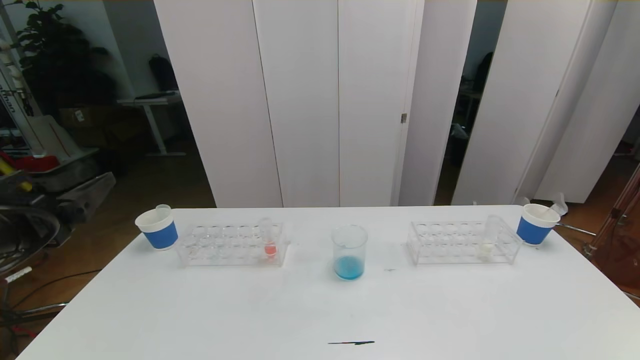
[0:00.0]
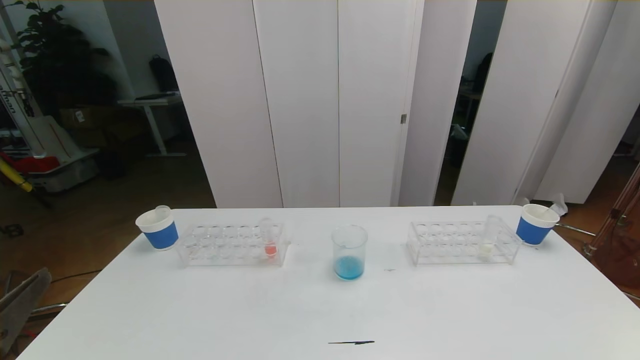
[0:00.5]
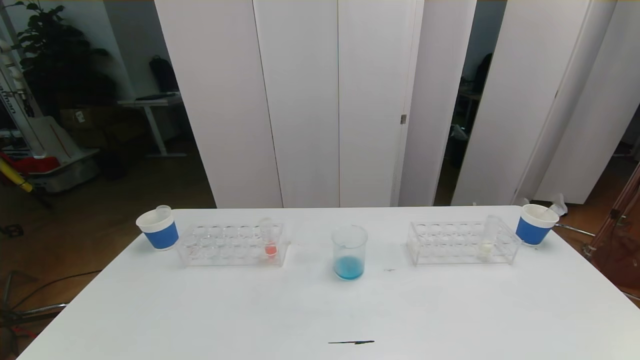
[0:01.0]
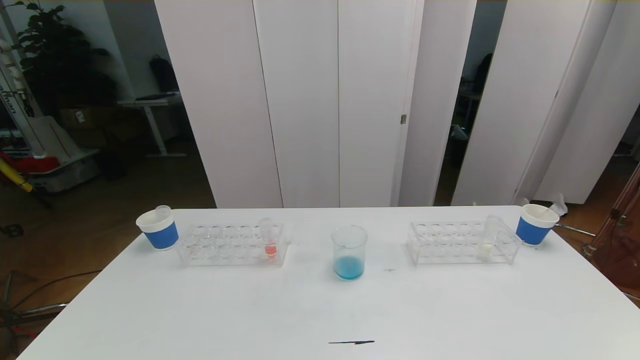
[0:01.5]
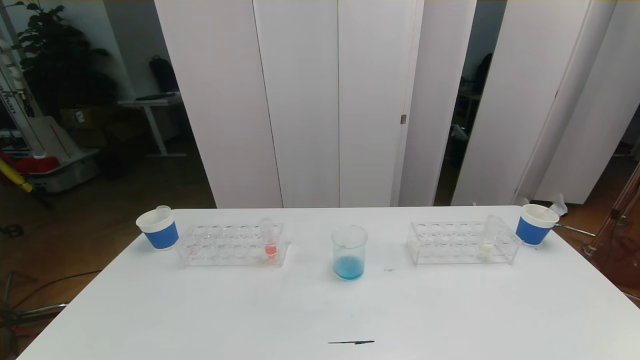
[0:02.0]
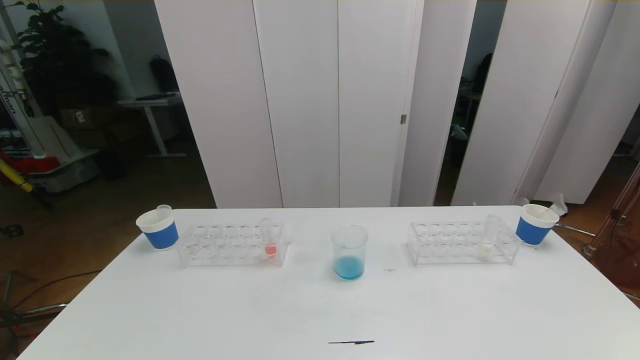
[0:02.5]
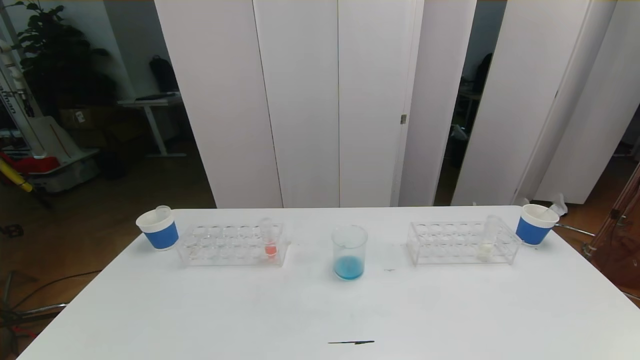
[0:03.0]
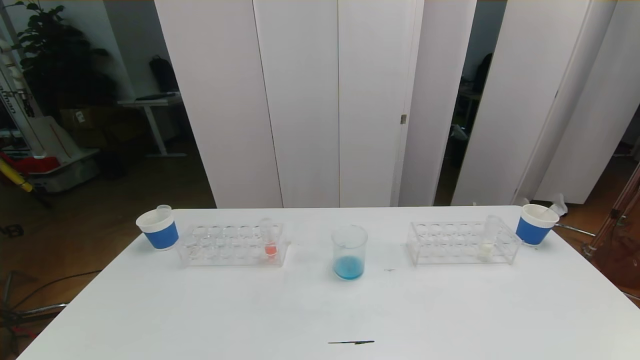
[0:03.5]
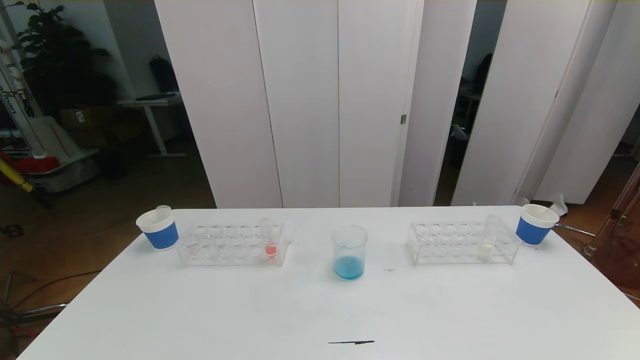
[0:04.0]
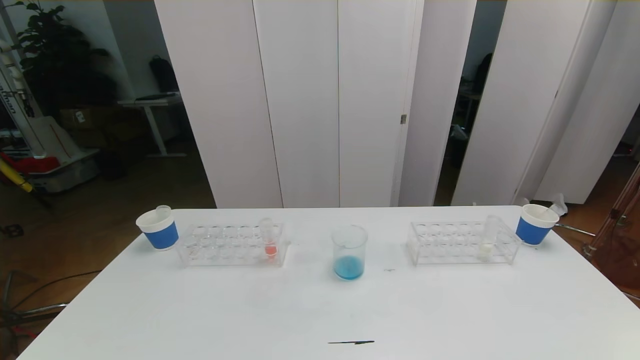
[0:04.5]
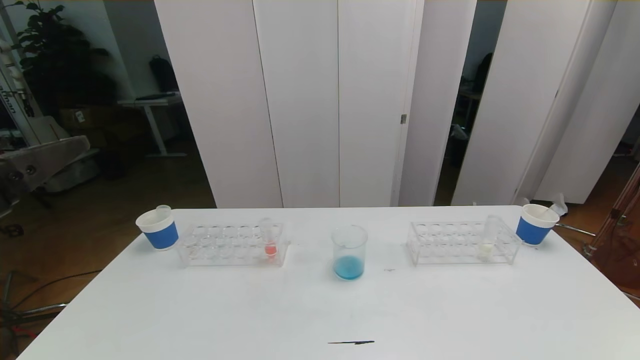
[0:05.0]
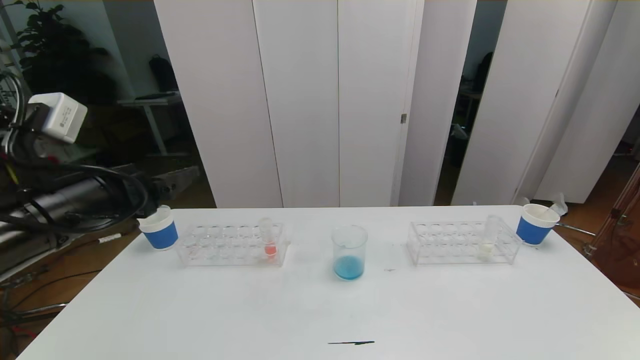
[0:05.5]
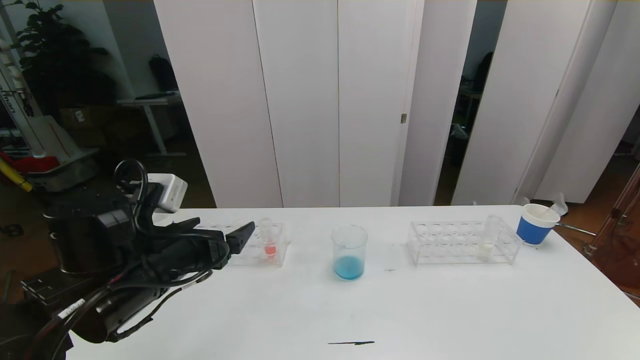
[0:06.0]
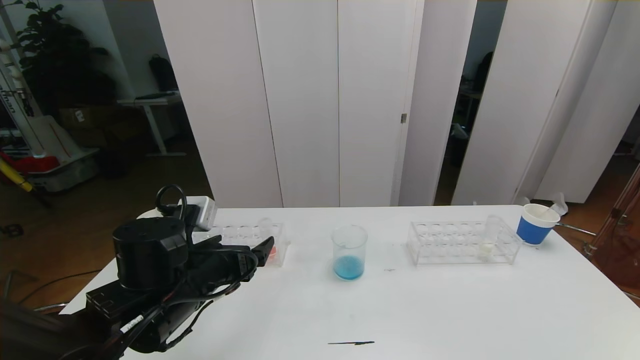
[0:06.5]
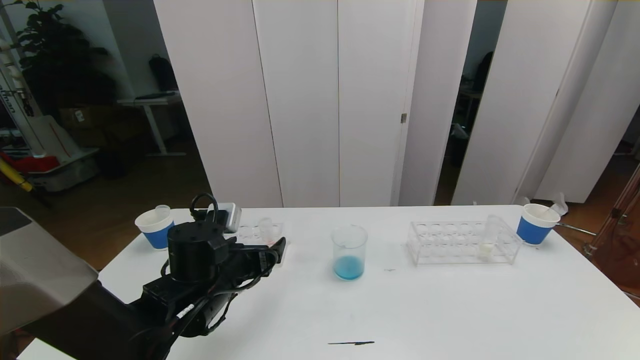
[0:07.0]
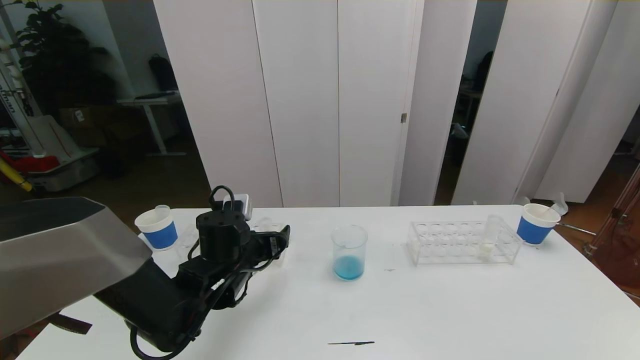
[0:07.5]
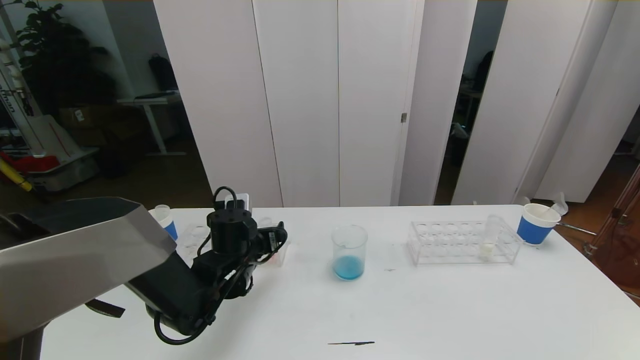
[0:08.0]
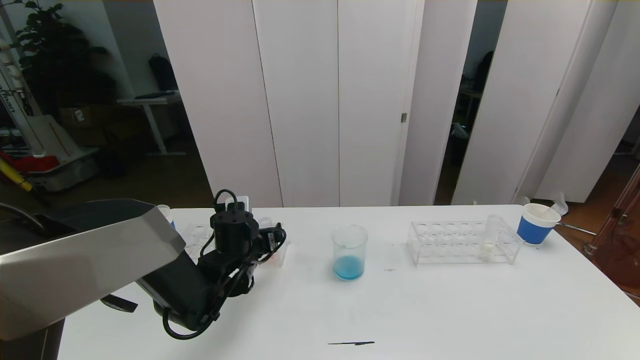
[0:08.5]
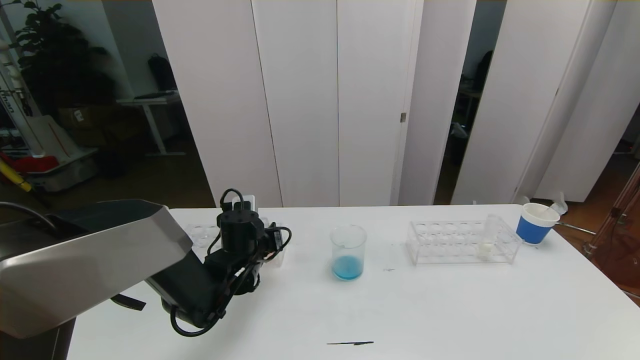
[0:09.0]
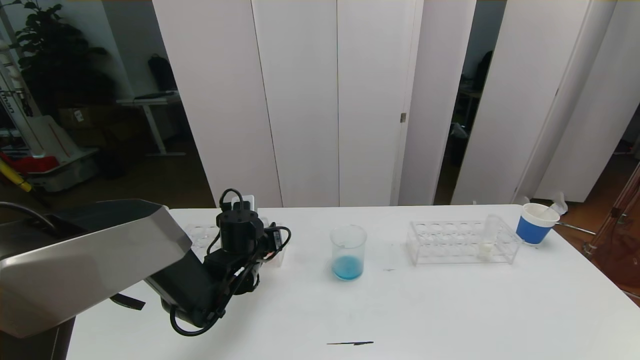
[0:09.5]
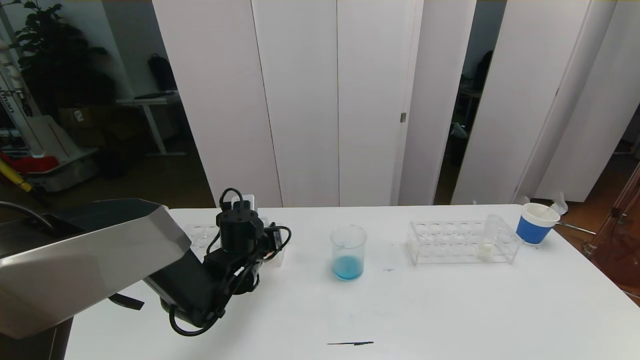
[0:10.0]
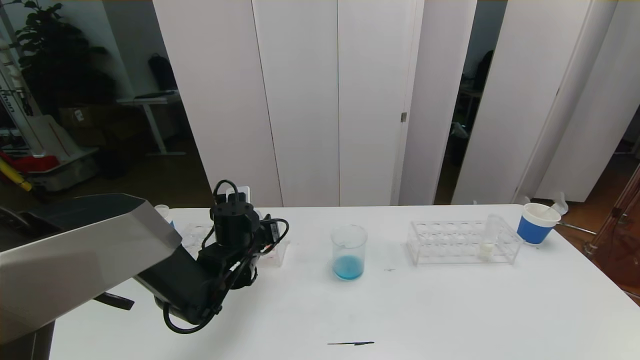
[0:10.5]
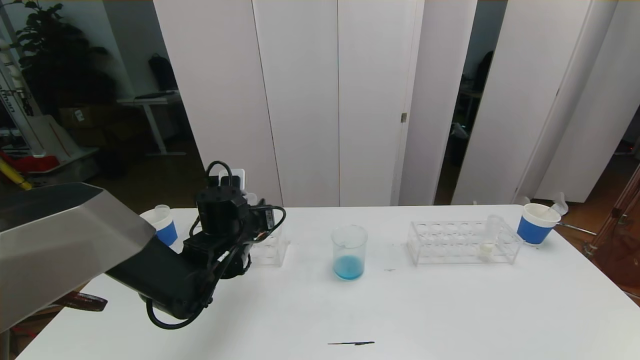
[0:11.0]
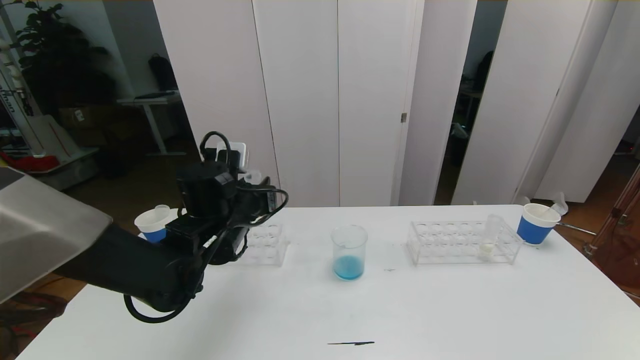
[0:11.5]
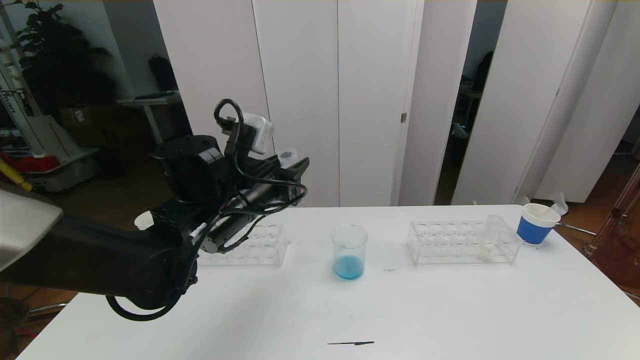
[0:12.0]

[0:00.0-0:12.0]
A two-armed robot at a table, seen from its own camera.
Task of the whole recording: pick up the test tube with red pigment the test tube with blue pigment and the test tube with white pigment by grippers and pour them into the beaker.
0:04.0 to 0:06.0: The left gripper shifts some 30 cm forward.
0:06.0 to 0:08.0: The left gripper heads forward and downward, covering some 15 cm.
0:08.0 to 0:10.0: The left gripper closes up.
0:10.0 to 0:12.0: The left gripper moves upward, about 15 cm.

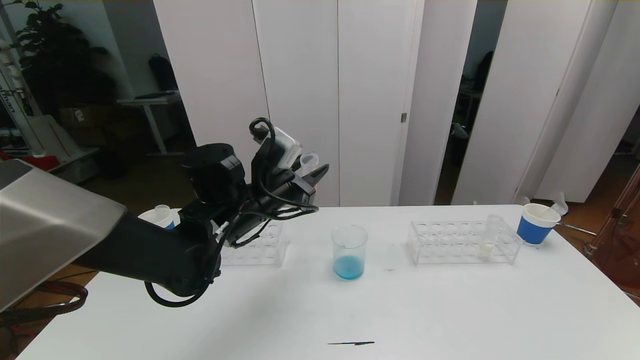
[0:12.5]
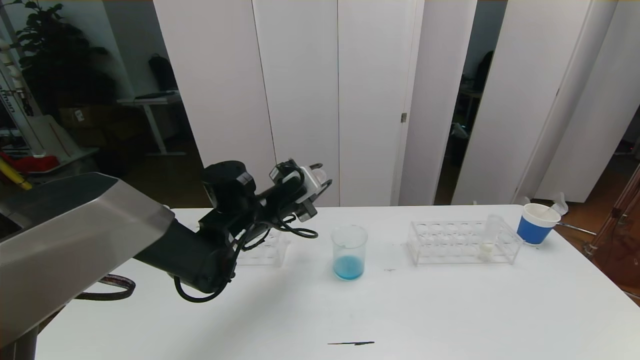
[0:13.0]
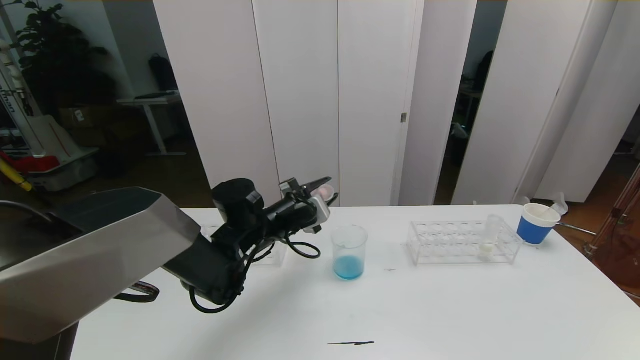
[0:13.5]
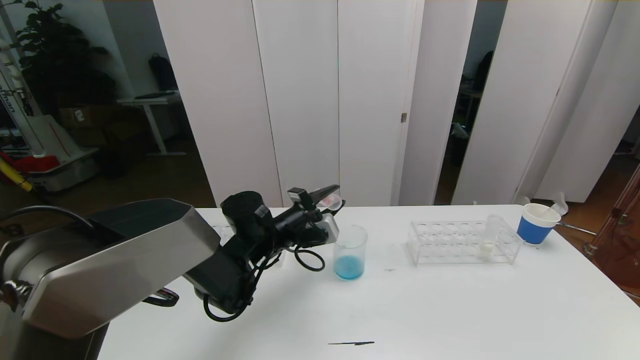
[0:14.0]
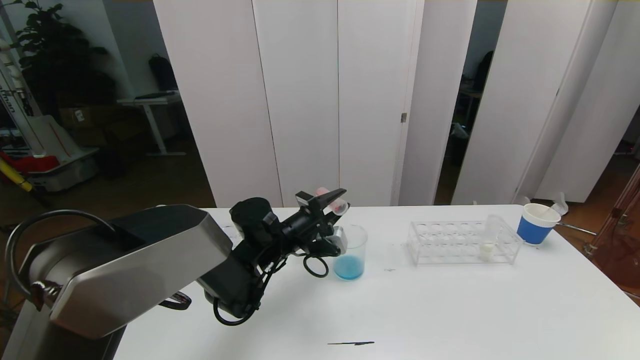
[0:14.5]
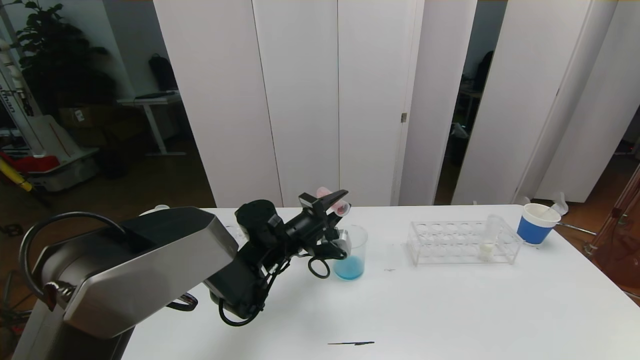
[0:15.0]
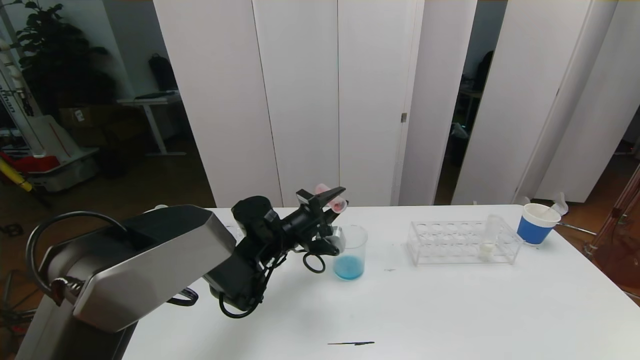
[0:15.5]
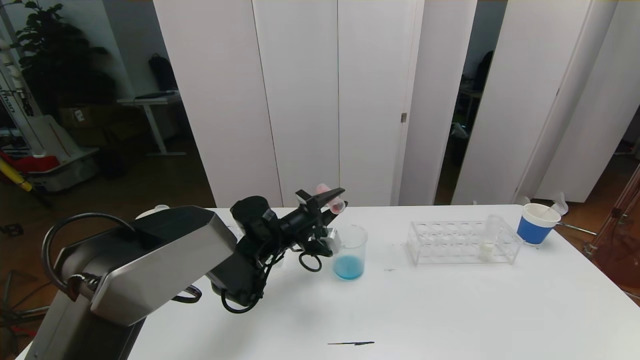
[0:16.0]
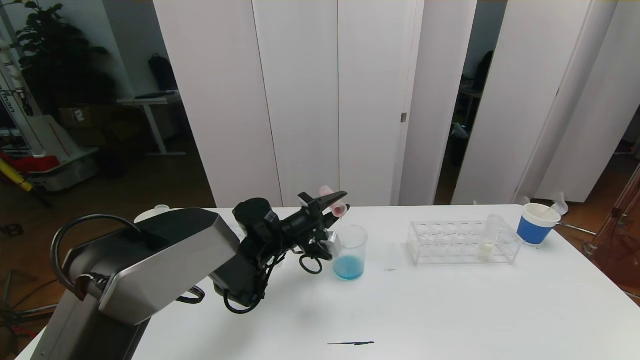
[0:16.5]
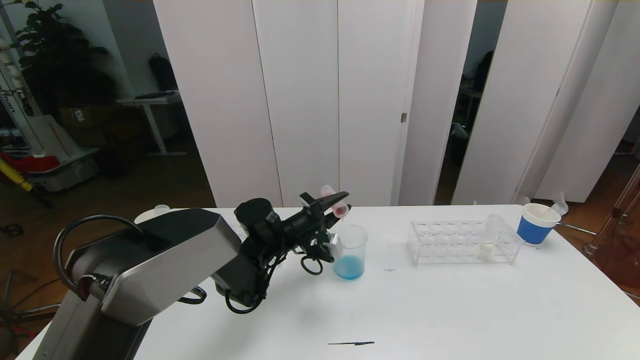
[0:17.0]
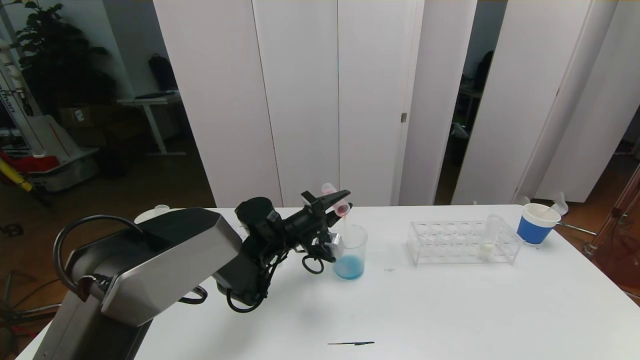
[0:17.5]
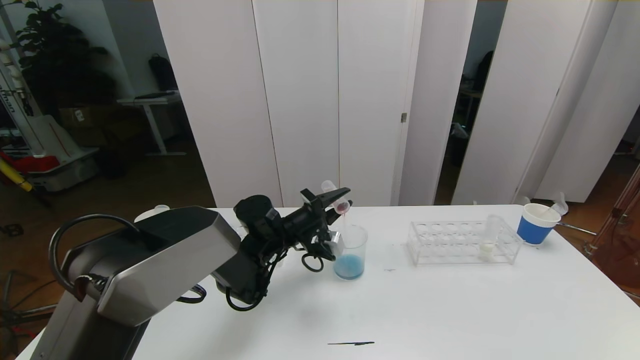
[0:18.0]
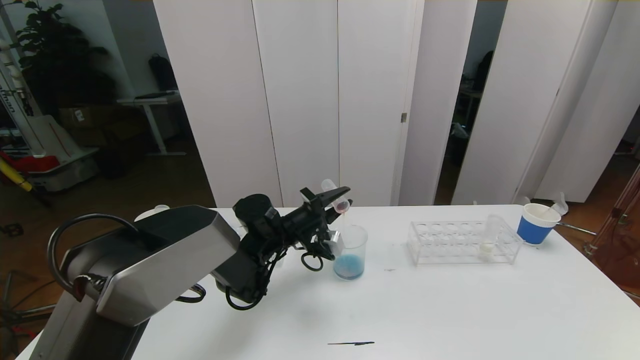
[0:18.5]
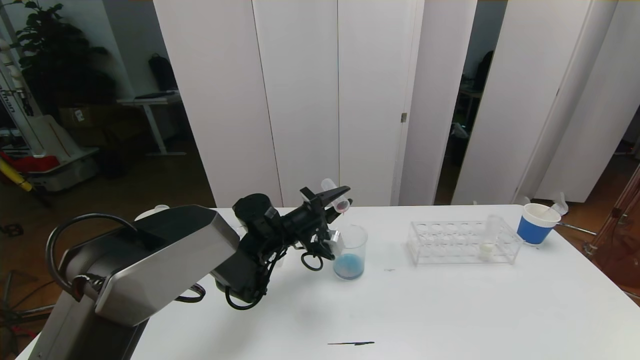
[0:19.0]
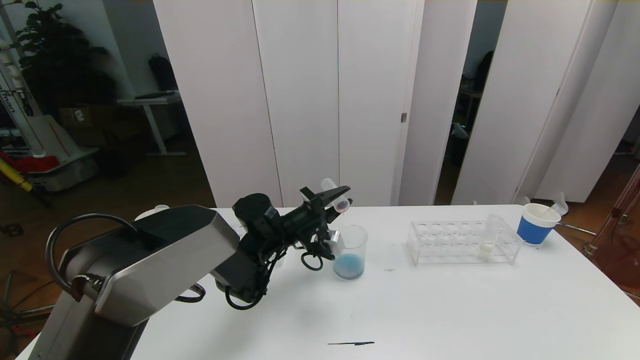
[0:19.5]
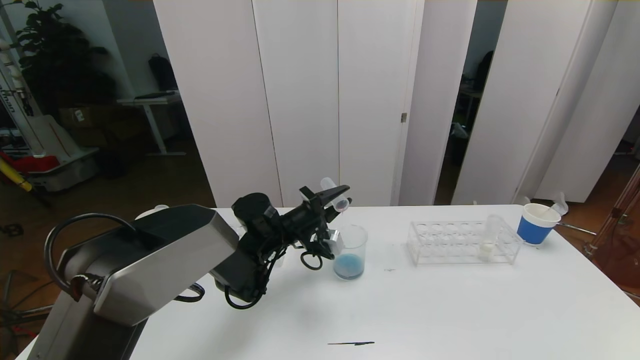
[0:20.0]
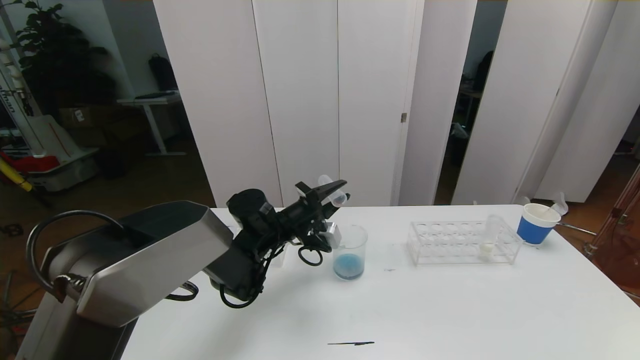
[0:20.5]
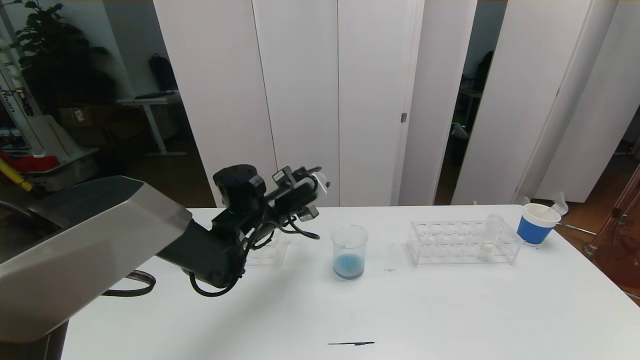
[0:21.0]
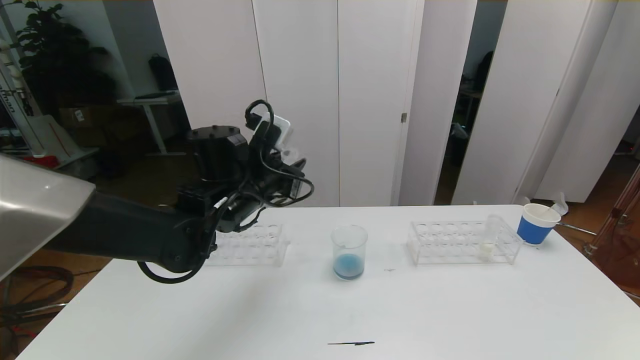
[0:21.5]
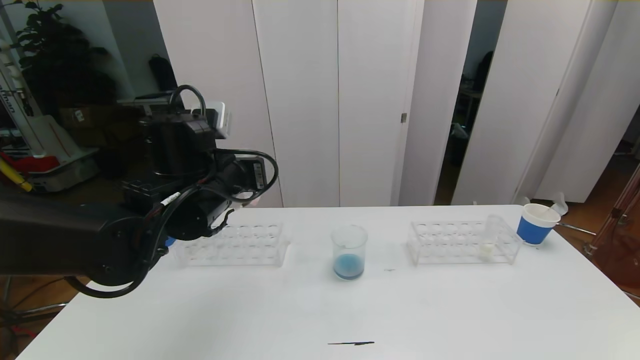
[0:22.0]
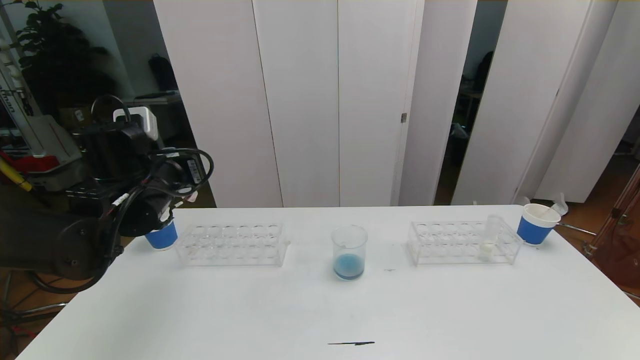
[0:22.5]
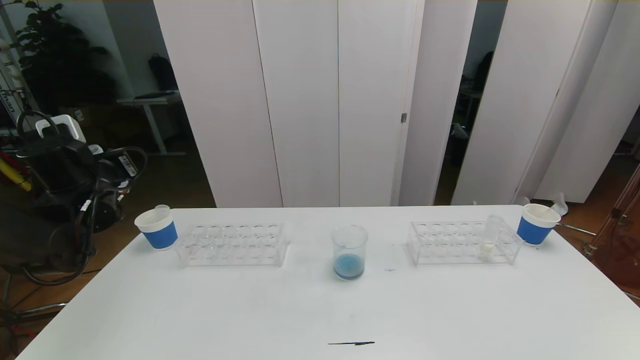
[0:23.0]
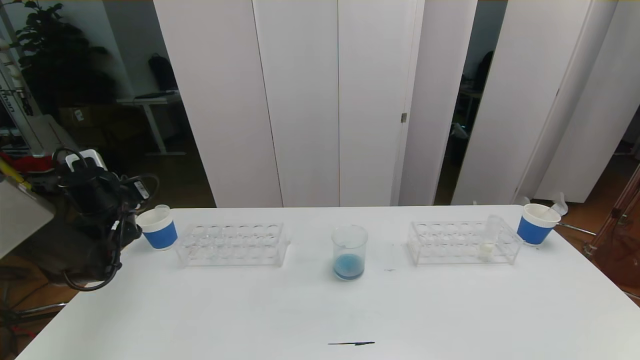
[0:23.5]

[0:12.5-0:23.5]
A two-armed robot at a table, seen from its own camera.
Task of the whole recording: pick up the test tube with red pigment the test tube with blue pigment and the test tube with white pigment by grippers and pour them into the beaker.
0:12.5 to 0:14.5: The left gripper heads downward, covering approximately 10 cm.
0:14.5 to 0:18.0: There are only small adjustments of the grippers.
0:18.0 to 0:20.0: Both grippers stay about where they are.
0:20.0 to 0:21.5: The left gripper moves upward and backward, roughly 15 cm.
0:21.5 to 0:23.5: The left gripper heads to the left, covering some 25 cm.
